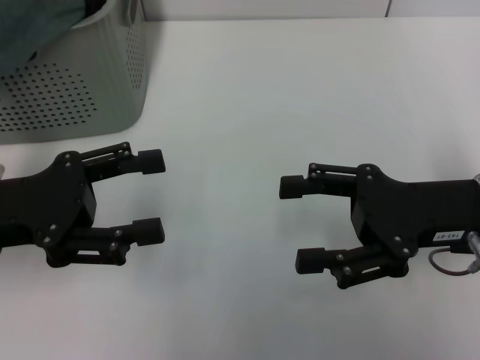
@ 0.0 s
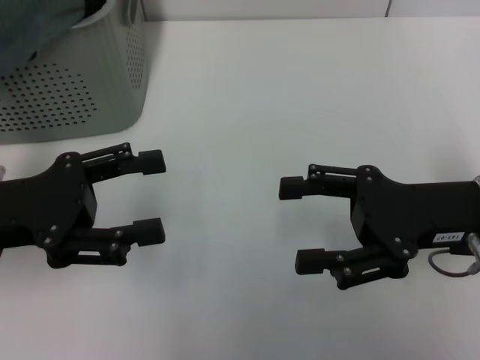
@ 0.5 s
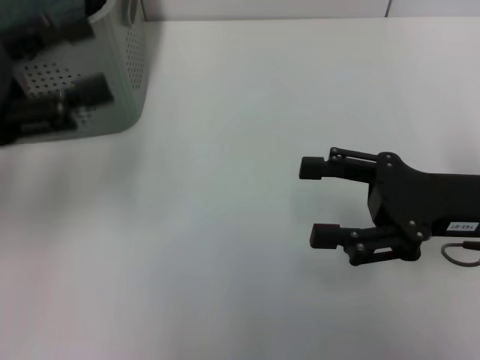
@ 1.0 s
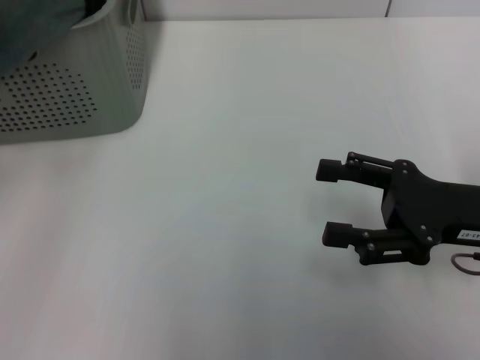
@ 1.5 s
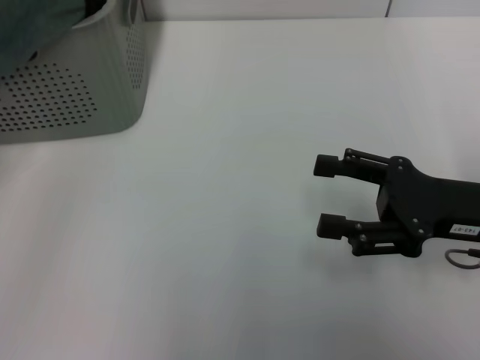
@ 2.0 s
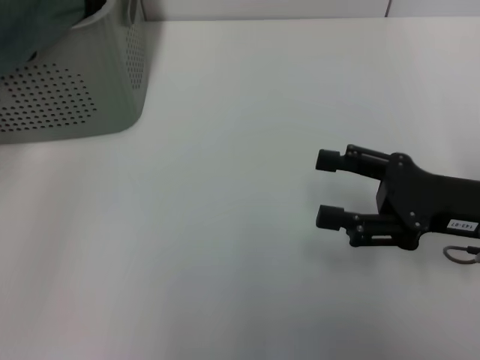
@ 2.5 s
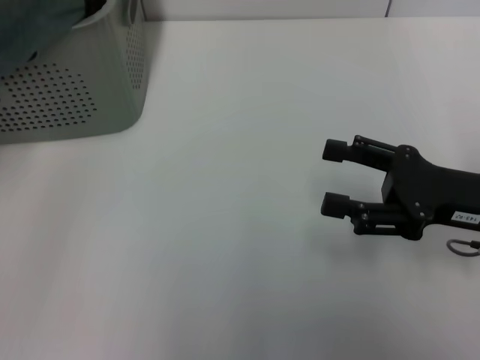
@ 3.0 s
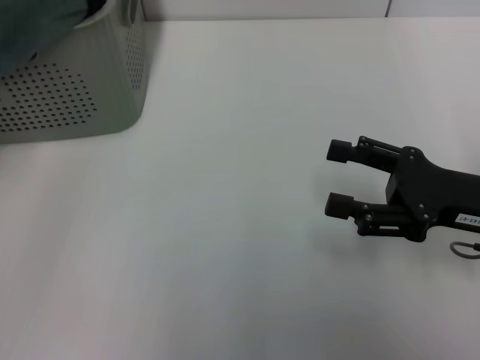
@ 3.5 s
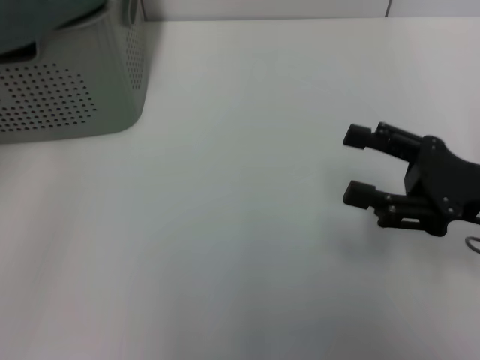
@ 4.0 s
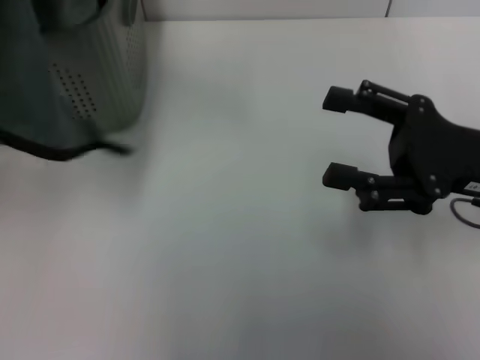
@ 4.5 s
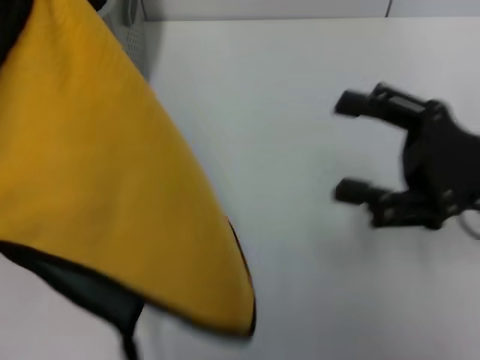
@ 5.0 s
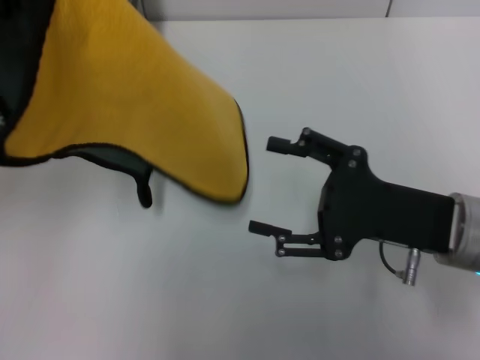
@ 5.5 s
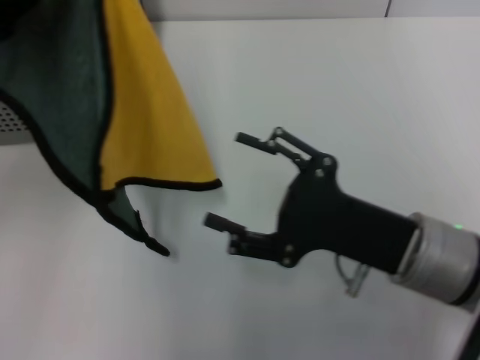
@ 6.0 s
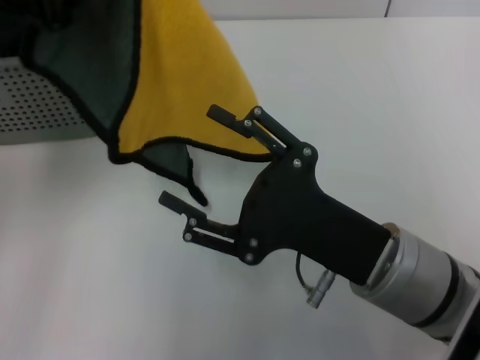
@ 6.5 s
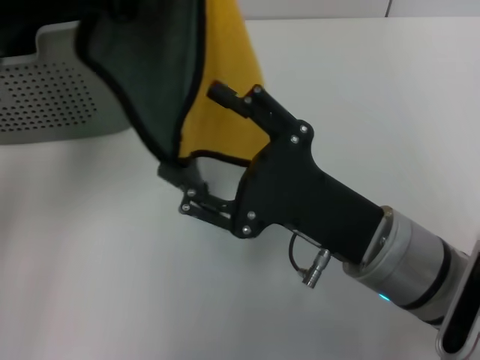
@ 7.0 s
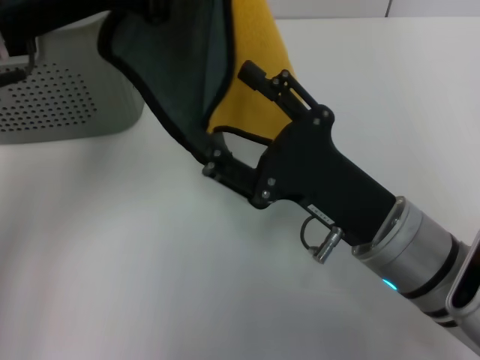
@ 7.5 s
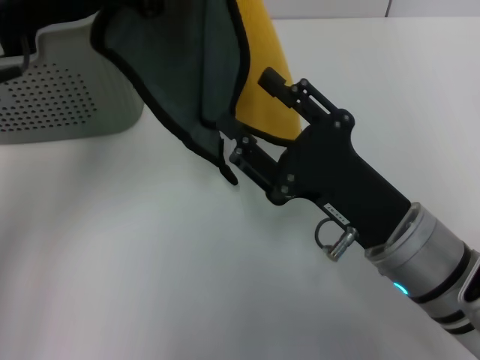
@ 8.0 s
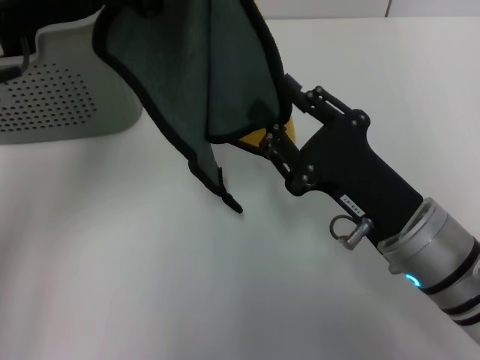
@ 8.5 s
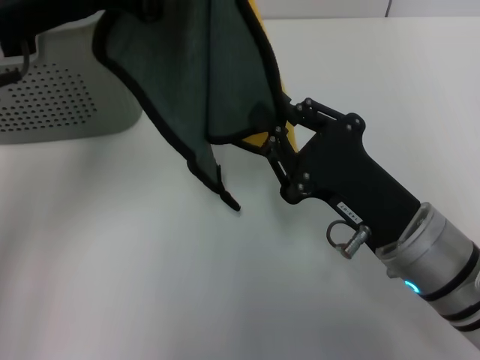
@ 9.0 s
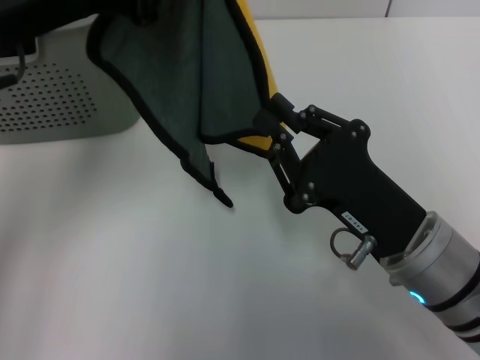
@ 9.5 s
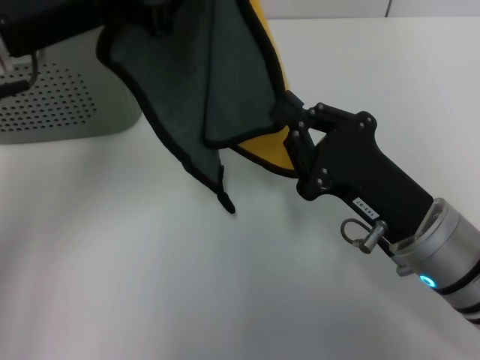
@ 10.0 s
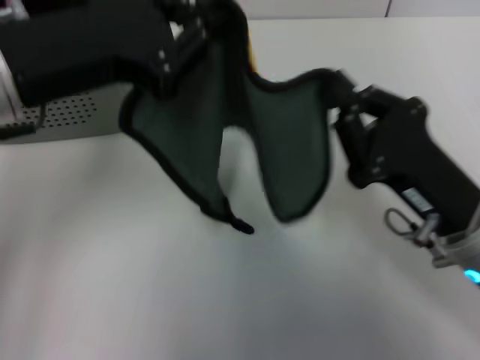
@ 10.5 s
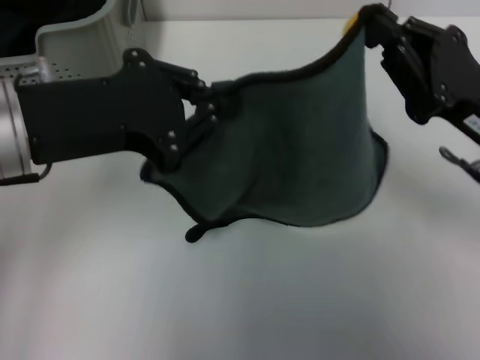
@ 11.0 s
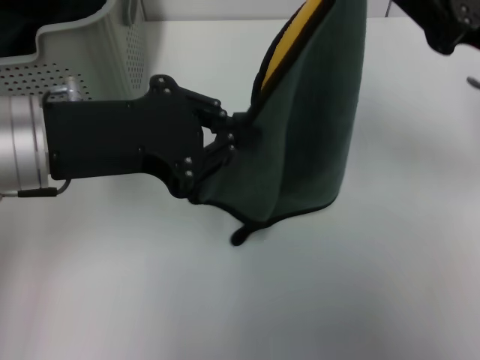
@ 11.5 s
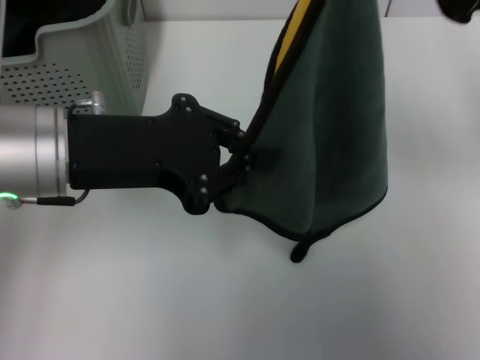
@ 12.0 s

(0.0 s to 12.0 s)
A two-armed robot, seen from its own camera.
Task of the whole recording: pick up the towel from the storage box and lay it flat on the table.
Step, 0.0 s - 3.0 s: Pick up a towel with the left gripper.
Step, 3.5 s - 9.5 s: Spread the towel flat with the left gripper.
0.0 s - 2.0 s: The left gripper goes roughly 15 cm upward and to the left.
2.0 s - 4.0 s: The left gripper closes its fingers.
4.0 s - 6.0 s: The left gripper travels to the right by approximately 5 cm. Meanwhile the right gripper heads to the left, covering some 10 cm.
6.0 s - 8.0 s: The left gripper is displaced to the right by approximately 10 cm.
8.0 s - 10.0 s: The right gripper closes.
10.0 s - 12.0 s: The right gripper goes about 20 cm upward, forward and to the right. The left gripper heads downward, covering roughly 5 cm.

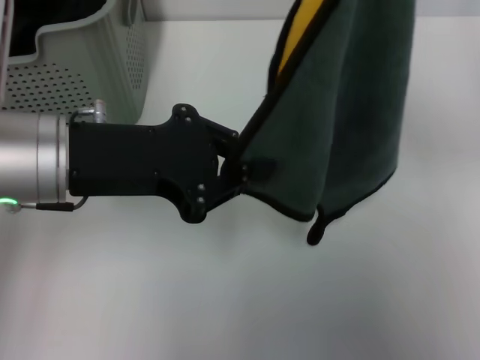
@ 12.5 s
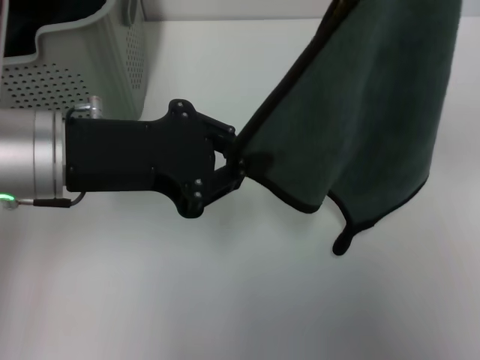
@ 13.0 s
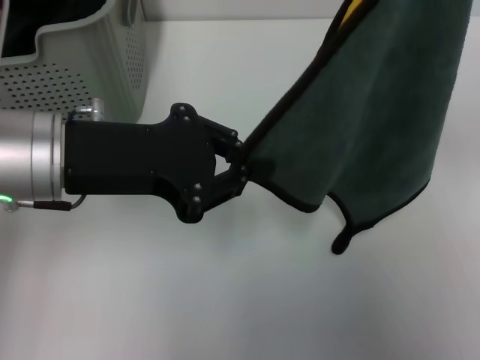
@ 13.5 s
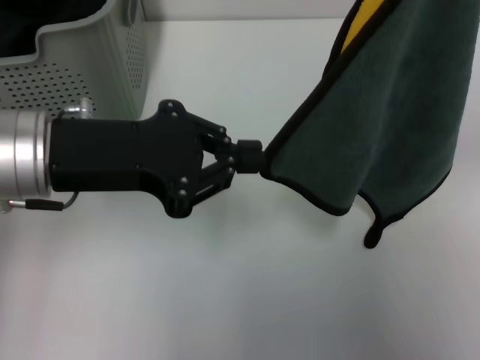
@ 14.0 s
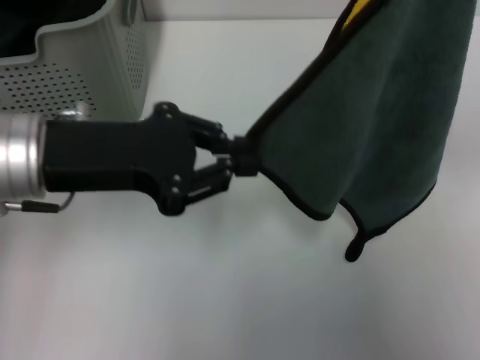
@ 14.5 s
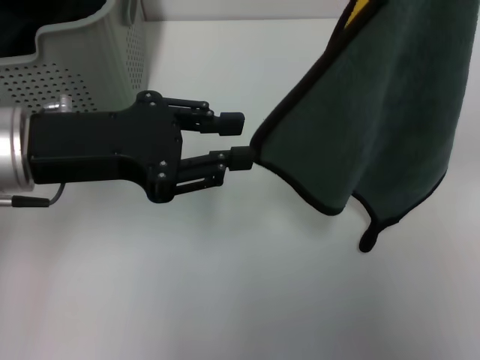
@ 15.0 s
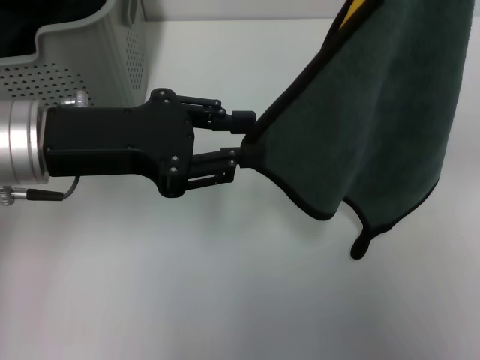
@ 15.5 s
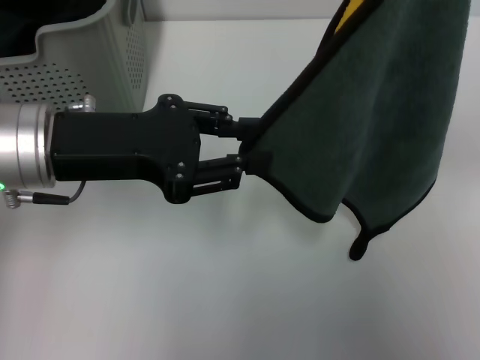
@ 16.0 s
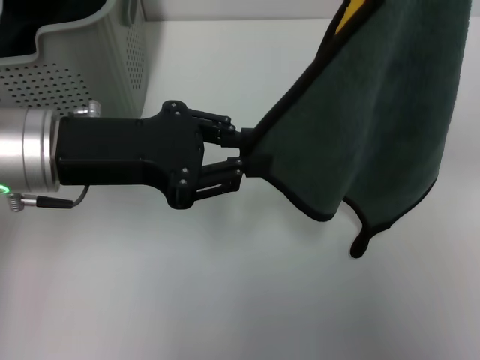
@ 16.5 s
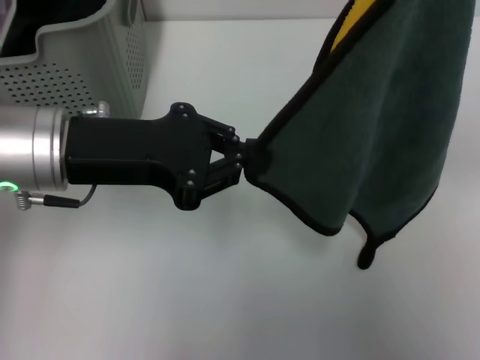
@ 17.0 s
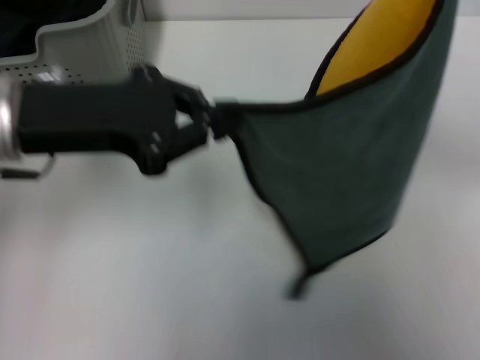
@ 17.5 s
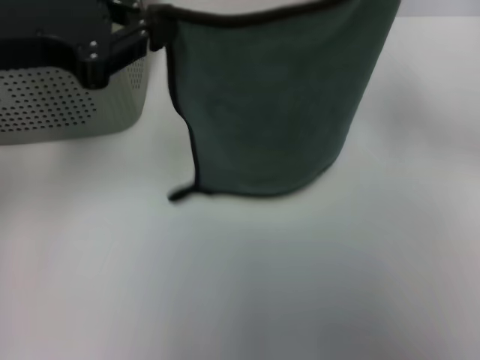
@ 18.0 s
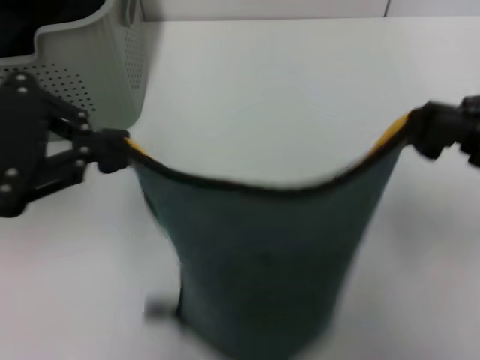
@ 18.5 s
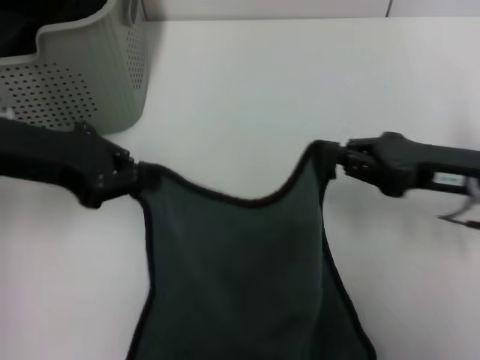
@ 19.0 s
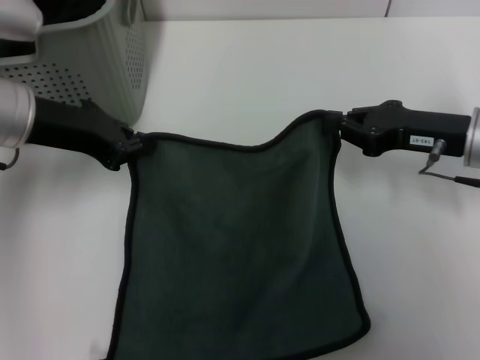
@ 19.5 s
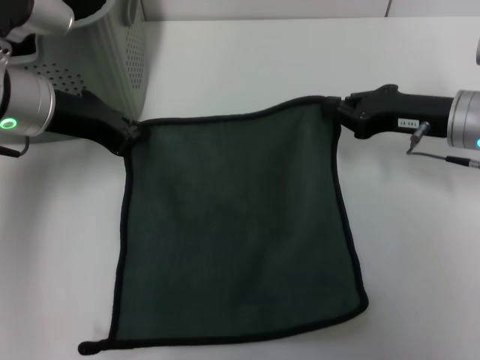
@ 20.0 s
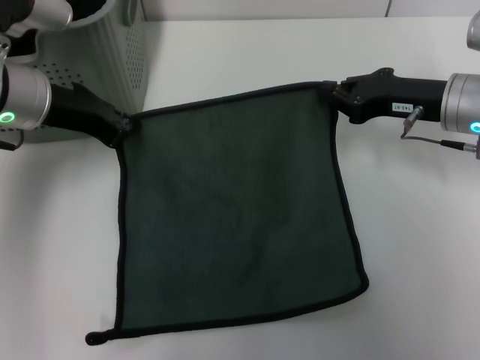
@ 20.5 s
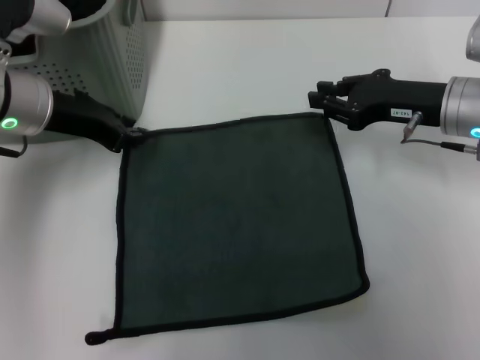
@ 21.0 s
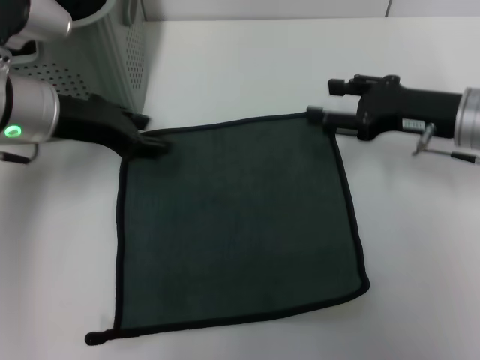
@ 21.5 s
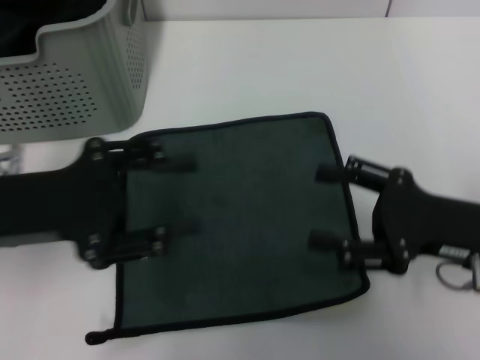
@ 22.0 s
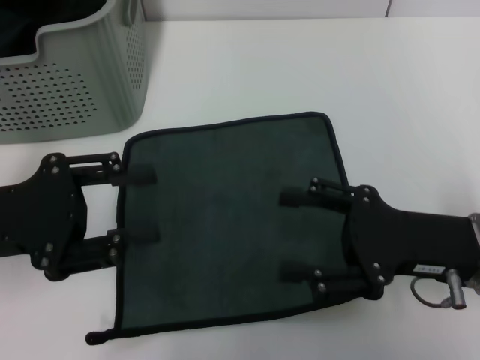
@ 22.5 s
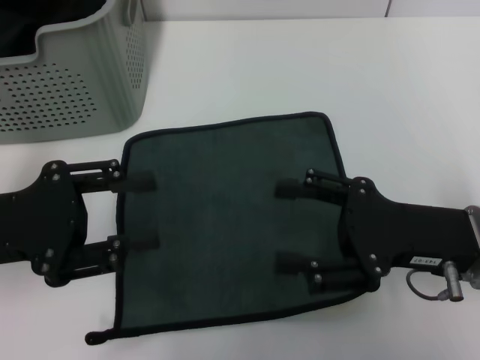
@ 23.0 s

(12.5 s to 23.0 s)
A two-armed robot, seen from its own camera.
Task of the whole recording: pick up the towel from the storage box and lay it flat on the table.
Step, 12.5 s - 21.0 s: Spread the towel flat with the right gripper.
14.5 s - 16.5 s: The grippers make only small movements.
16.5 s - 19.0 s: The right gripper travels downward by about 10 cm. The left gripper travels to the left by some 5 cm, and closes its fingers.
19.0 s - 21.0 s: Both grippers move forward, roughly 5 cm.
21.0 s - 23.0 s: The left gripper moves backward and to the left, approximately 15 cm, and opens its fingers, while the right gripper travels backward by roughly 15 cm, and opens.

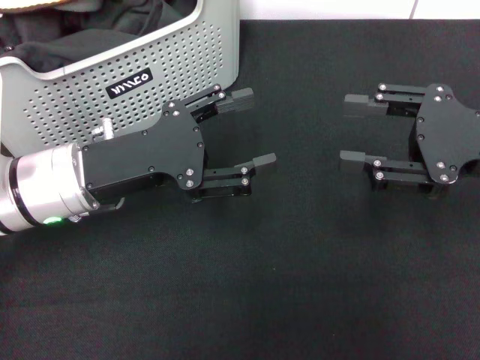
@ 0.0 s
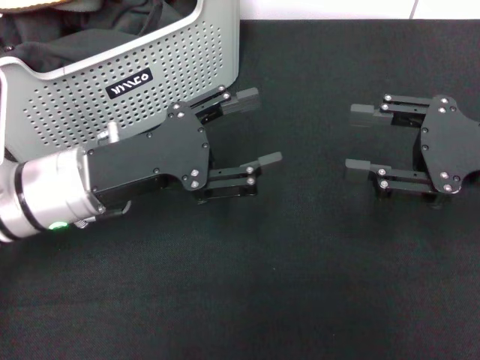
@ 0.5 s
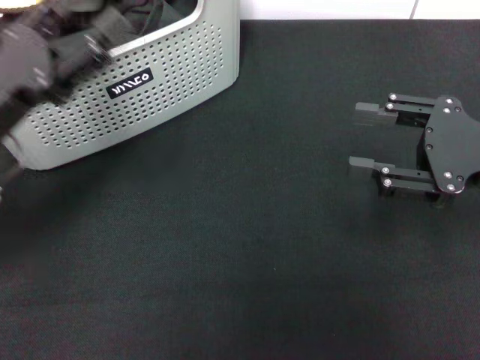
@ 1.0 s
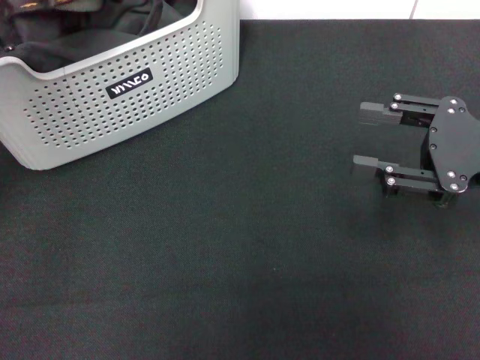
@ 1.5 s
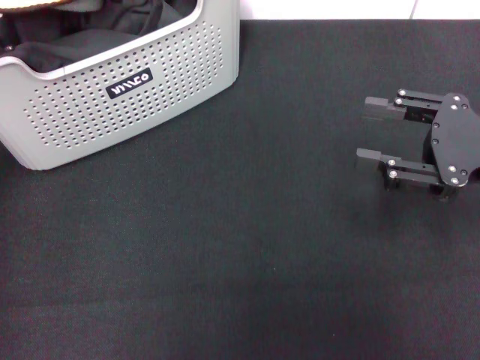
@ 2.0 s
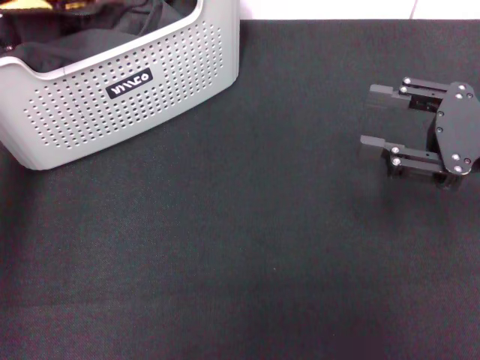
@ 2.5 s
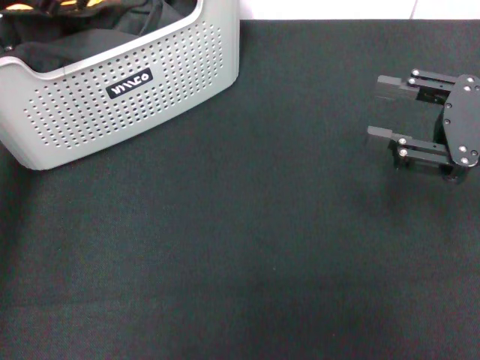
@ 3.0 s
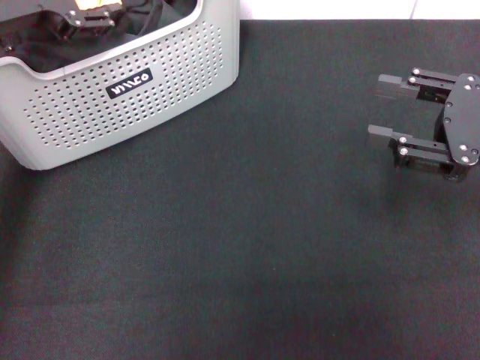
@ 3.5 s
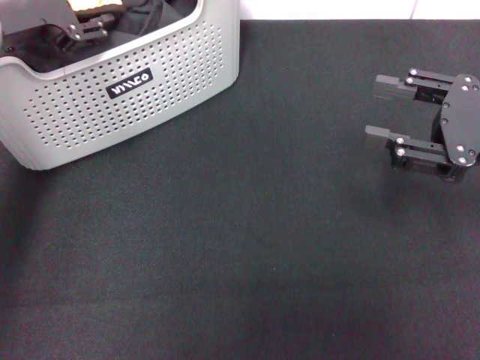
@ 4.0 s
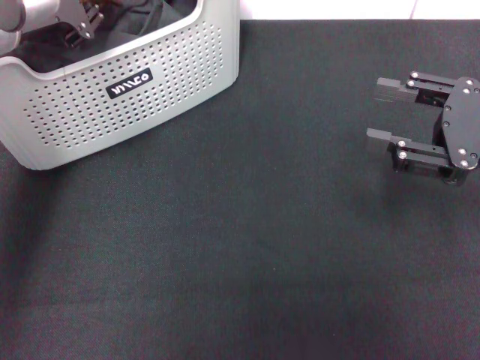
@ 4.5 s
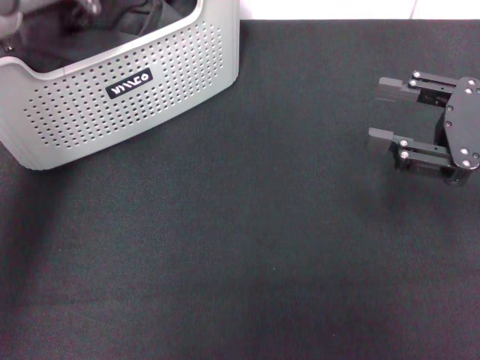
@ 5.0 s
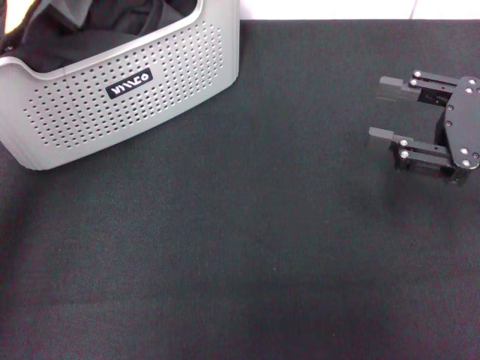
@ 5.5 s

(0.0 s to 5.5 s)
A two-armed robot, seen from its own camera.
Task of the whole recording: pick up the towel from the storage box and lay it flat on the black tablecloth.
Step, 0.0 s - 4.5 s: Pick up a towel with the left gripper.
0.0 s - 2.0 s: The left gripper shifts approximately 15 cm upward, forward and to the left.
3.5 s - 5.5 s: The left gripper ends up some 5 cm from where it was, and closes its fingers.
